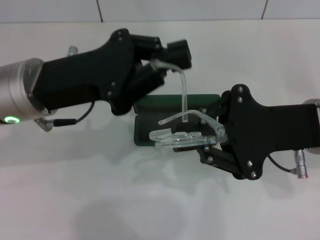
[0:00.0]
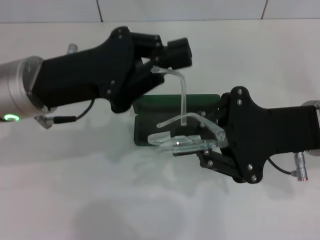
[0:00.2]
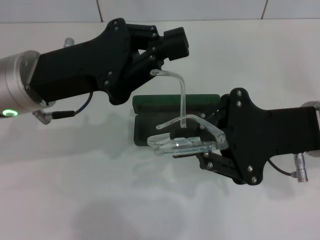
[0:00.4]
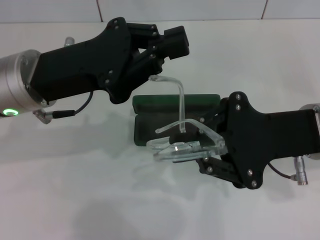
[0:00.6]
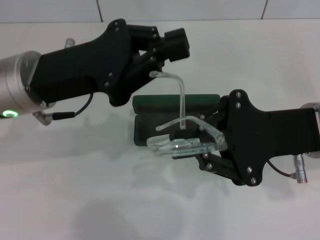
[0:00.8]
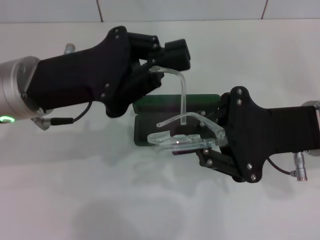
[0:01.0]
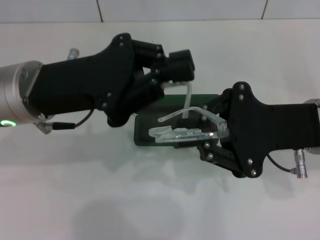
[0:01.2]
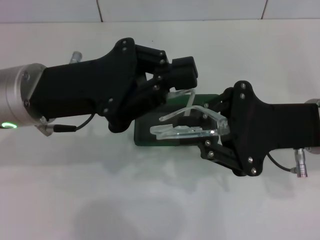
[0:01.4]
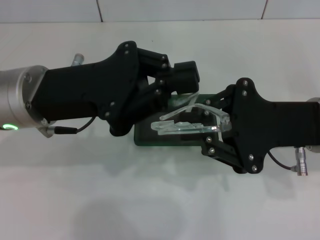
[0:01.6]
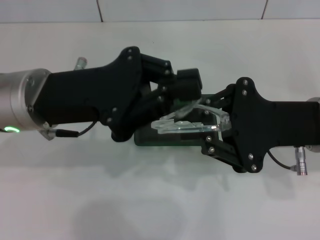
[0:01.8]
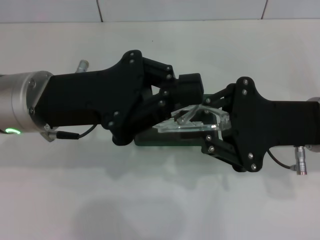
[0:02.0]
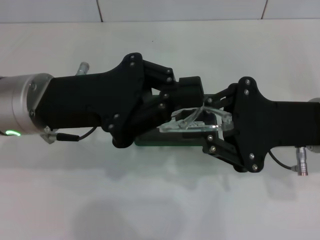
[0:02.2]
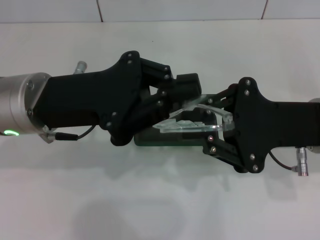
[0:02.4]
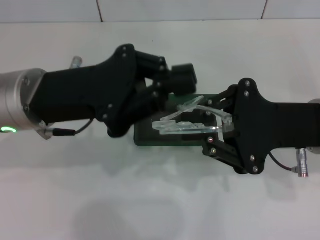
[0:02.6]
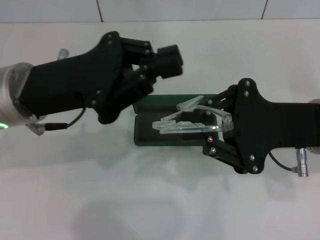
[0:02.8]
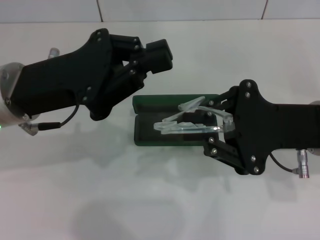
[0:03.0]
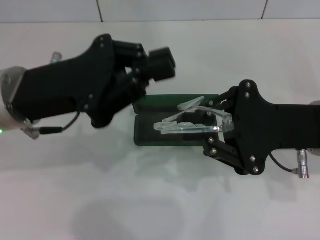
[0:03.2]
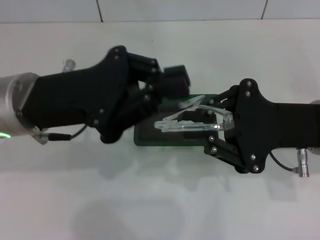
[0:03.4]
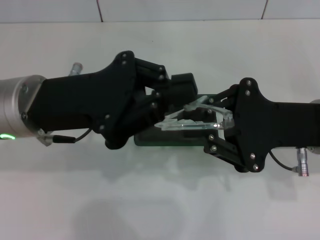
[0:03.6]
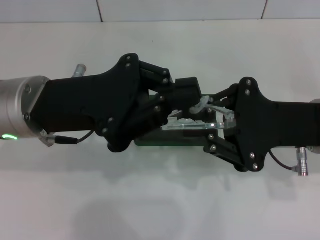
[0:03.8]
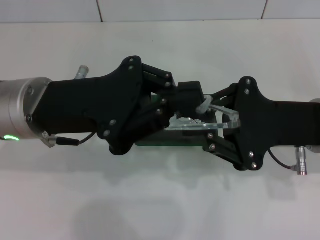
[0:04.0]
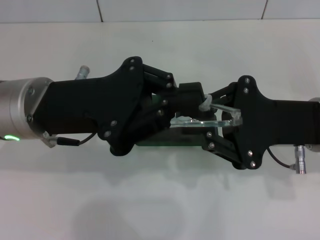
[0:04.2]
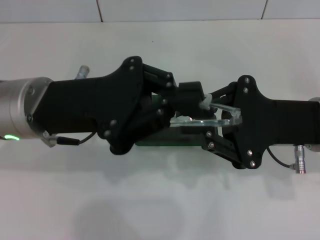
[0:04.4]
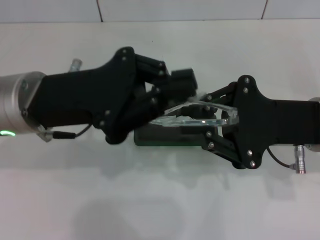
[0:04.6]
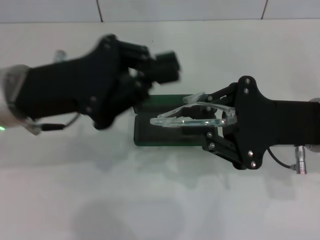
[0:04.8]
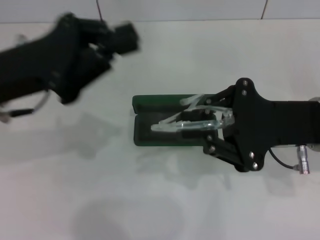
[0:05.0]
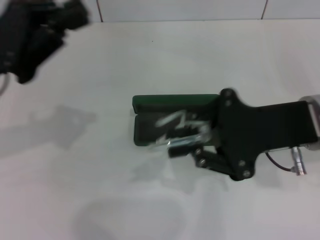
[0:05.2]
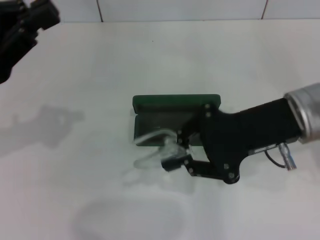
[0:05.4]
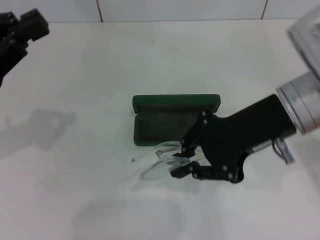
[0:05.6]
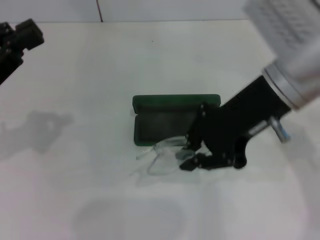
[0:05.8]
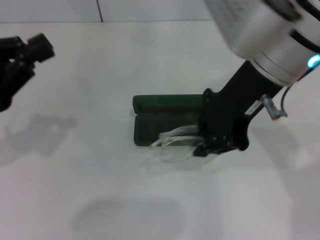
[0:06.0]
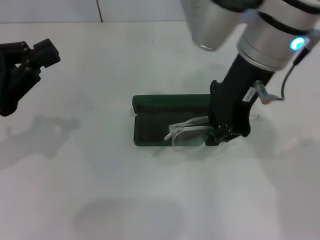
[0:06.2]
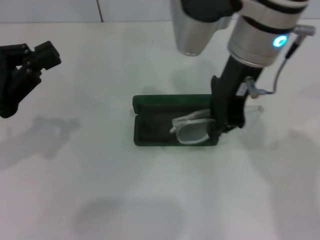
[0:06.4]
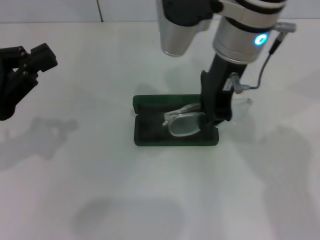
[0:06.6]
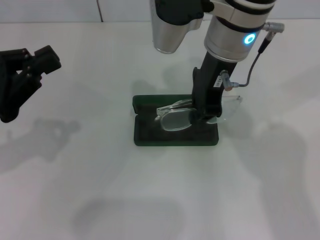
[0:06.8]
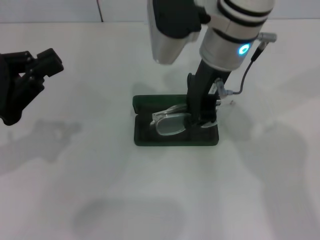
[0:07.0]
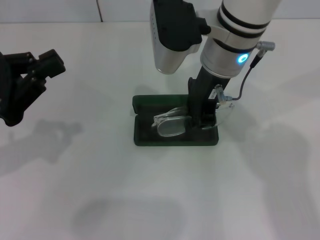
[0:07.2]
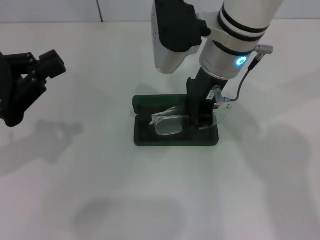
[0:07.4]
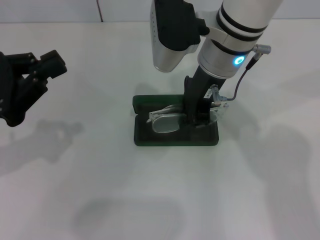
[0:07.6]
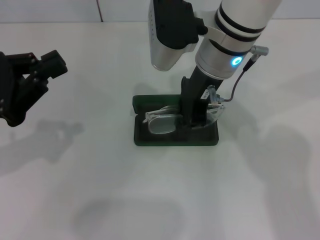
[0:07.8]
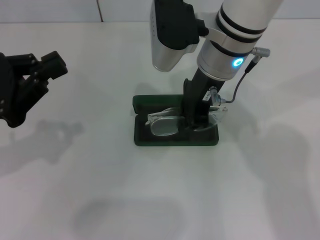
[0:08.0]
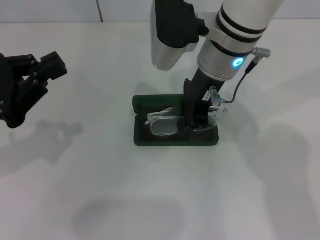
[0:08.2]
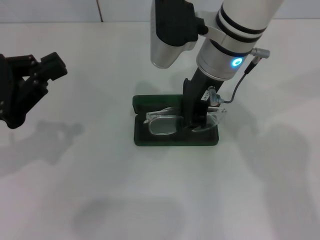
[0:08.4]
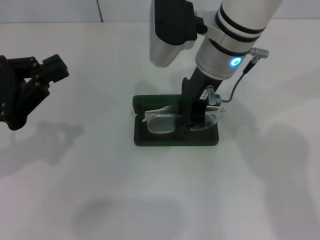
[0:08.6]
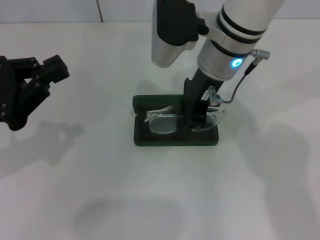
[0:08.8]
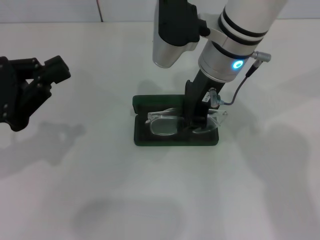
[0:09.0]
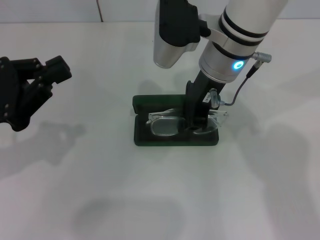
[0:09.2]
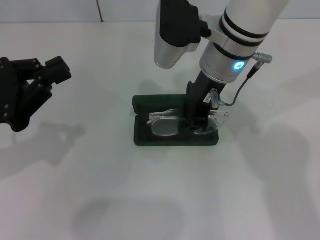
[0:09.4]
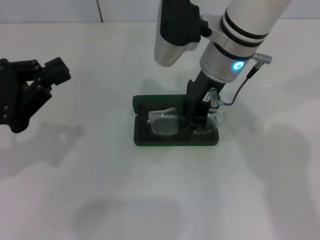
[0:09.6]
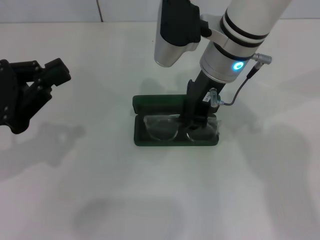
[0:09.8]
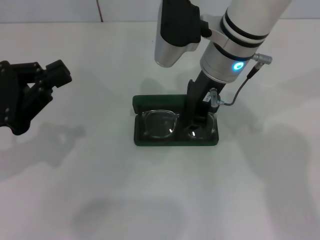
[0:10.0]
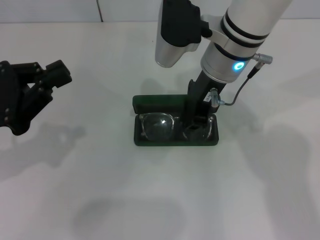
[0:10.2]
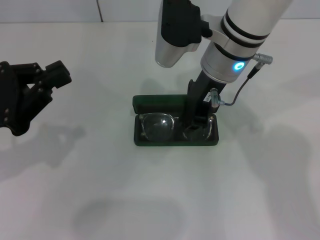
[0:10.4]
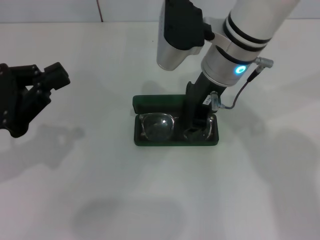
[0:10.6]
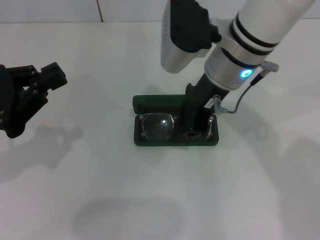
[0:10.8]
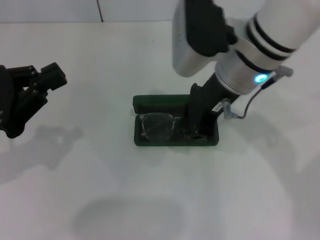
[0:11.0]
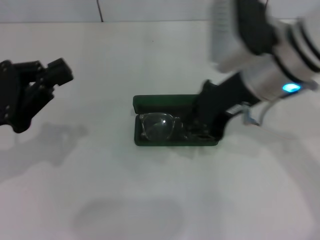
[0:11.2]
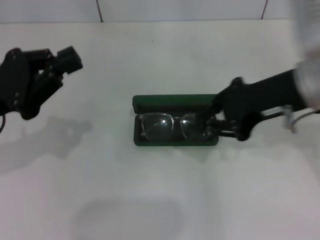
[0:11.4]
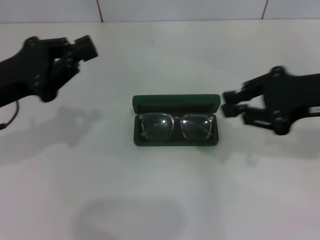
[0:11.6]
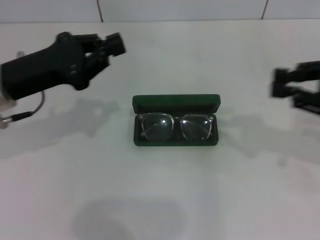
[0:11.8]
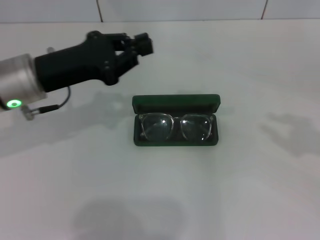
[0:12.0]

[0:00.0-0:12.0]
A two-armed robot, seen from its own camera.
Step, 0:02.2 to 0:10.4: Put the glasses into the case with your right hand.
0:00.0 to 0:03.0: The grippers stay close to where they were, moving slightly.
0:04.4 to 0:06.0: The left gripper heads to the left, covering approximately 15 cm. The right gripper heads upward and to the left, covering about 15 cm.
0:06.0 to 0:07.6: The right gripper heads forward, downward and to the left, covering some 10 cm.
0:07.6 to 0:09.0: The grippers move only a little.
0:09.0 to 0:10.4: Both grippers stay put.
0:10.4 to 0:12.0: The right gripper is displaced to the right and backward by some 35 cm; the left gripper is displaced forward and to the right by some 10 cm.

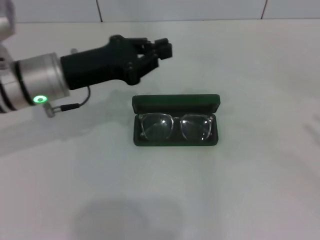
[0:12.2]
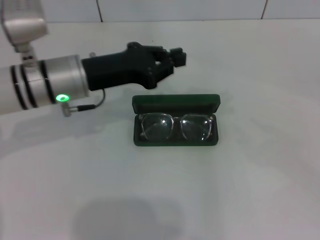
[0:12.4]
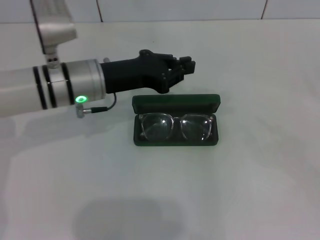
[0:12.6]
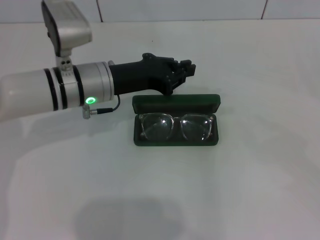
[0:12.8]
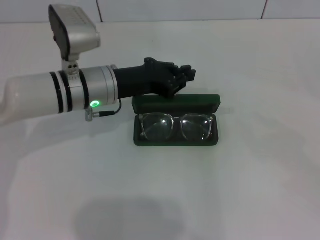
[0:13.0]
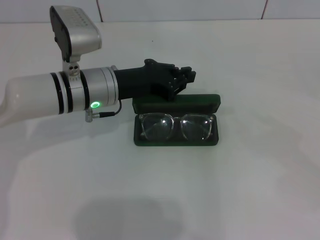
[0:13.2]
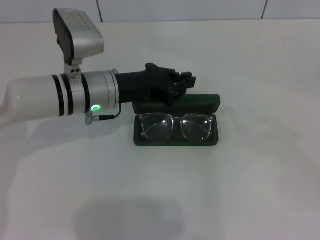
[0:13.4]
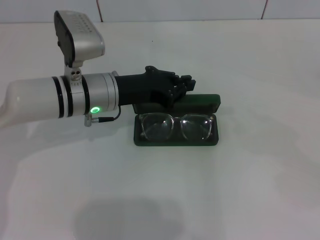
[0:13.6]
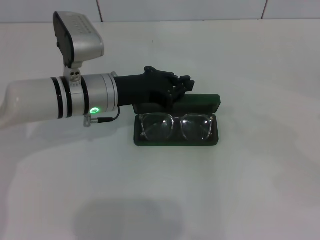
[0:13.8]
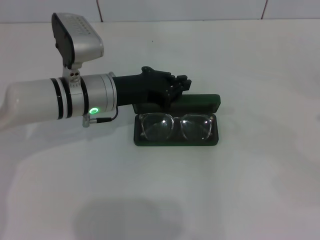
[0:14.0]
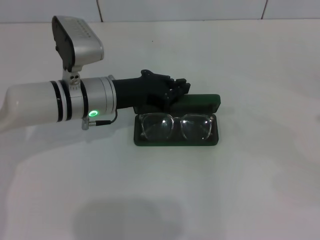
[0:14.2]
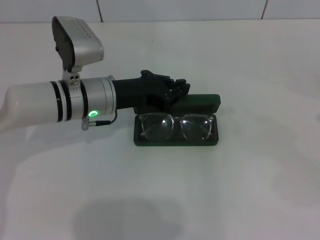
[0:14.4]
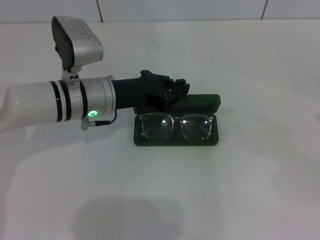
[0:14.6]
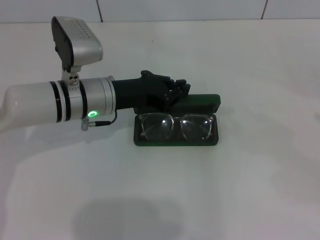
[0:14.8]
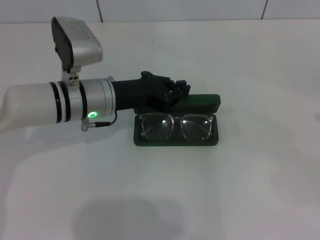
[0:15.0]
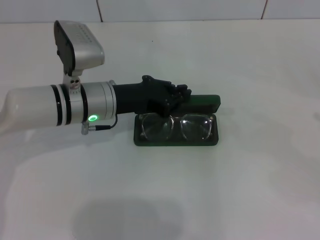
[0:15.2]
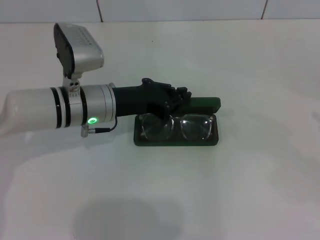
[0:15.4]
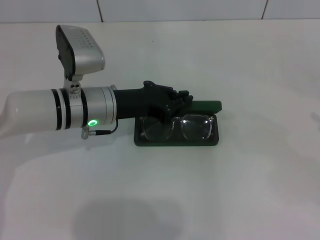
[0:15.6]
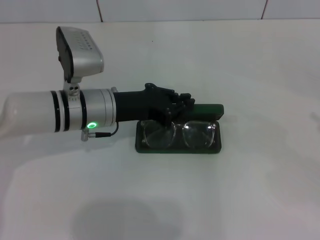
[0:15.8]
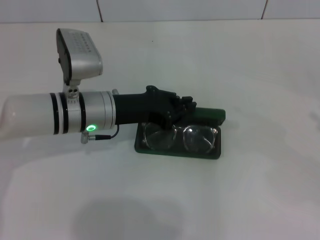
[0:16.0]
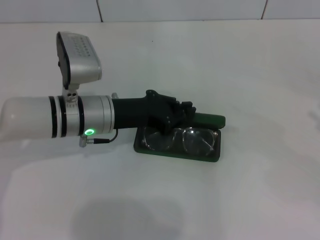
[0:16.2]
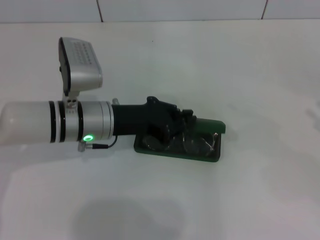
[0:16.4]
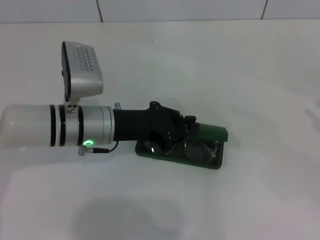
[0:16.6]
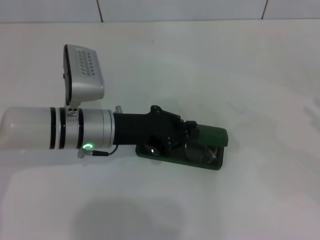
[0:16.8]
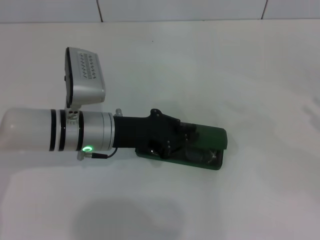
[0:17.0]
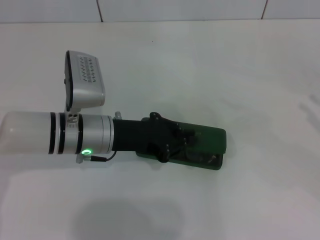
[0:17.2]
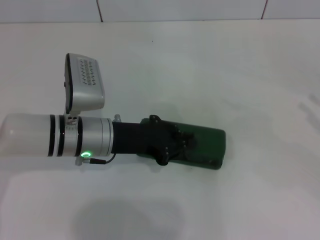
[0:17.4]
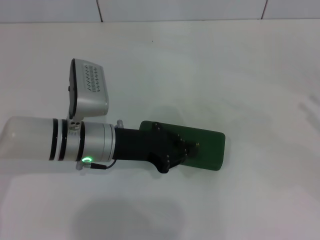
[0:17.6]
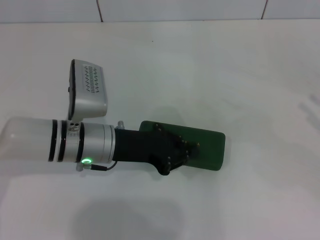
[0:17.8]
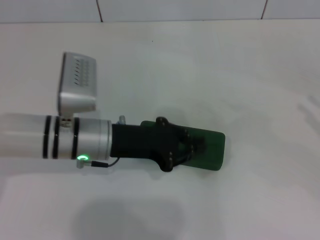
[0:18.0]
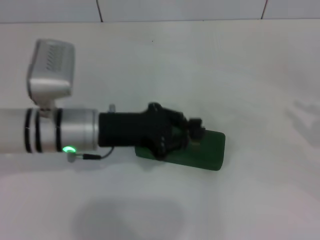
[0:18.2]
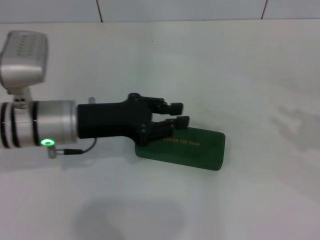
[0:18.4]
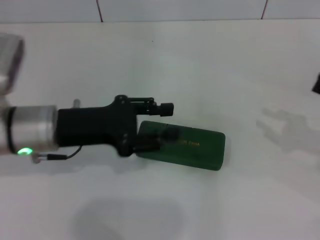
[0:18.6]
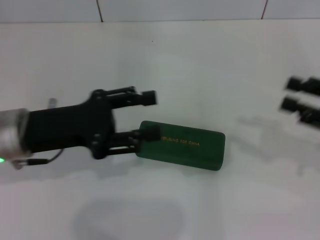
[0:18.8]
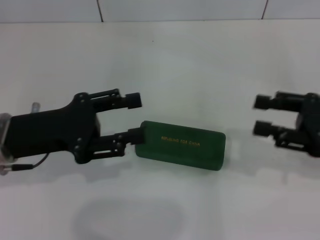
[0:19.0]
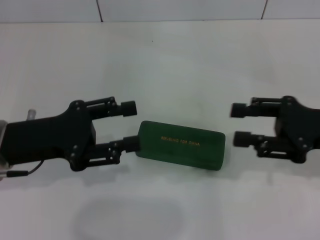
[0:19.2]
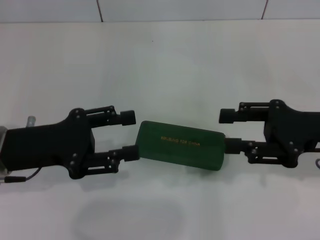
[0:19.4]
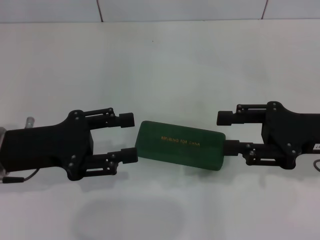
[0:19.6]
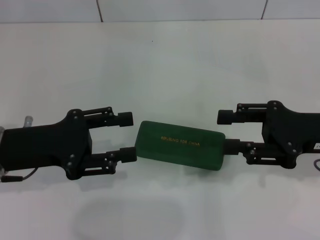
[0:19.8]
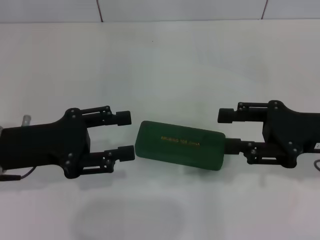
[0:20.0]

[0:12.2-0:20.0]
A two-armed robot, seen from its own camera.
Step, 0:12.2 to 0:17.4: Close the glasses case with your left hand.
0:12.2 to 0:13.8: The left gripper moves to the right, about 5 cm.
0:13.8 to 0:16.8: There are only small adjustments of the grippers.
0:16.8 to 0:18.4: The left gripper ends up roughly 5 cm from where it was.
0:18.4 to 0:20.0: The right gripper heads to the left, covering some 15 cm; the left gripper shifts about 10 cm to the left, and opens its fingers.

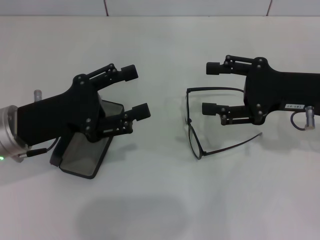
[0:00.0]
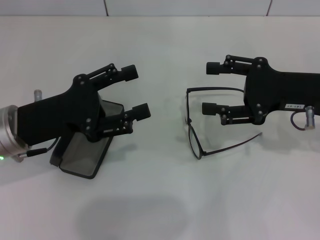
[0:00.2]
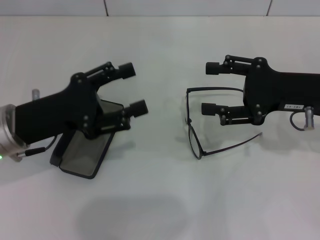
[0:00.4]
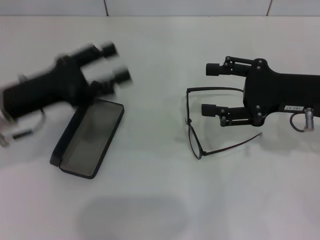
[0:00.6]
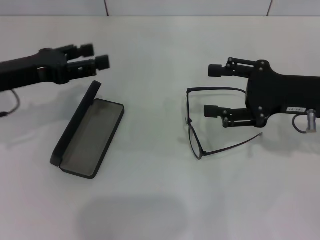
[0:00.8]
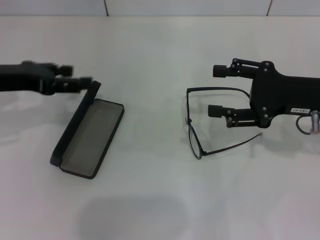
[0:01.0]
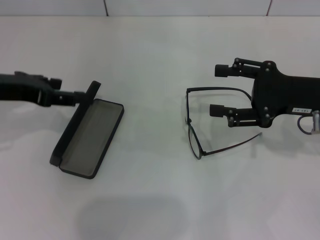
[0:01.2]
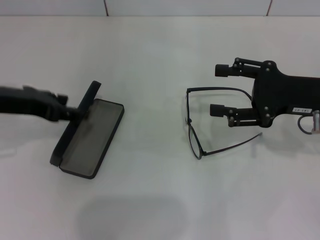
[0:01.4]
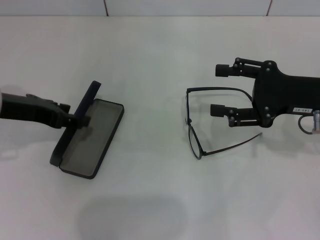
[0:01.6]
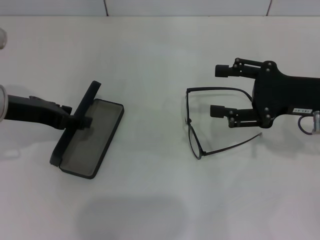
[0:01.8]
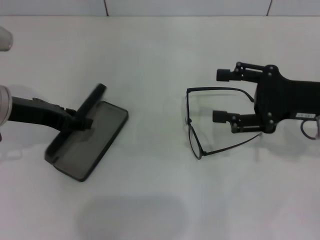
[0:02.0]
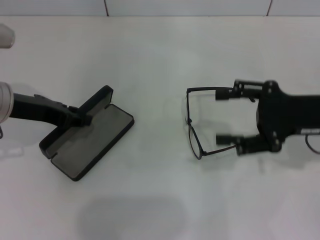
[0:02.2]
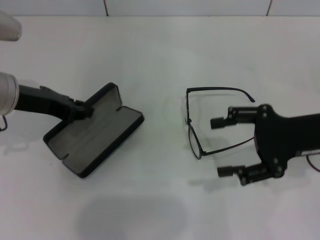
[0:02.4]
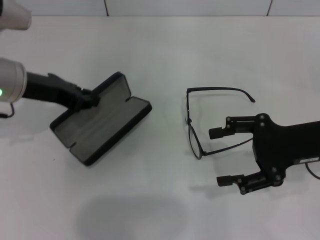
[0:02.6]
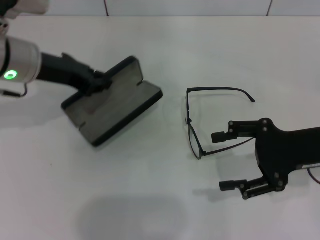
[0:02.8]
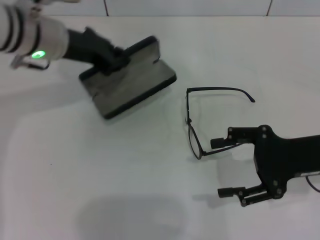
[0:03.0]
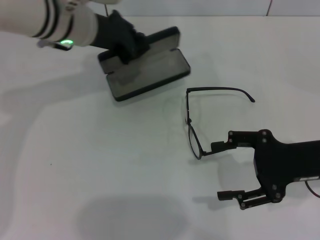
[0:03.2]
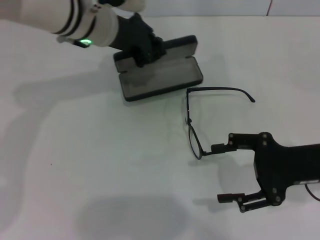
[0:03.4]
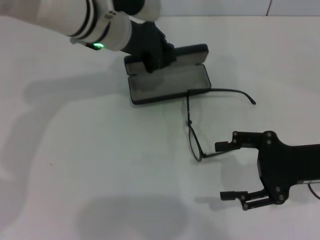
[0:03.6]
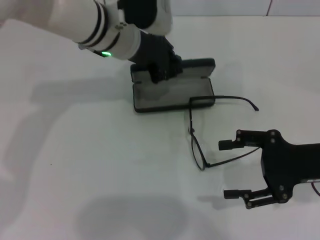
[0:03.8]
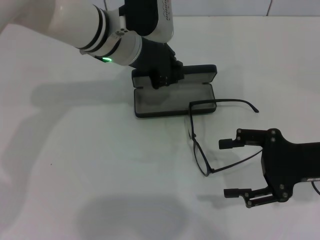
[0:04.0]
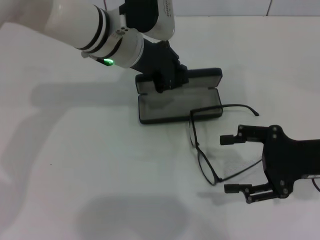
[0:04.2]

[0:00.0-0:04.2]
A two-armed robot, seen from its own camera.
Step, 0:00.0 to 0:02.4: Grab the glasses case with your left hand.
0:00.0 to 0:01.4: The left gripper is displaced upward by about 5 cm.
0:01.4 to 0:02.8: The left gripper moves forward, about 5 cm, and closes up.
0:02.8 to 0:04.2: The left gripper shifts approximately 15 cm to the right.
